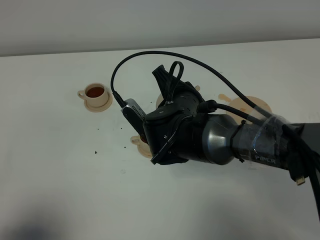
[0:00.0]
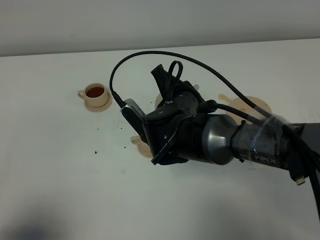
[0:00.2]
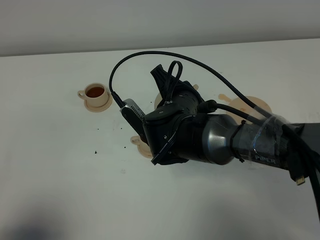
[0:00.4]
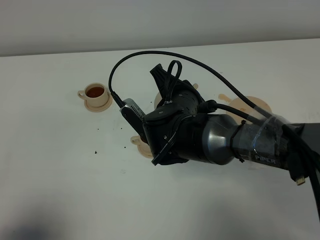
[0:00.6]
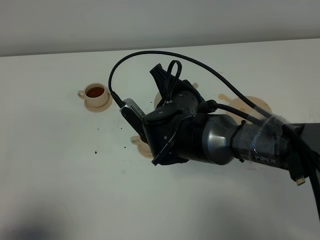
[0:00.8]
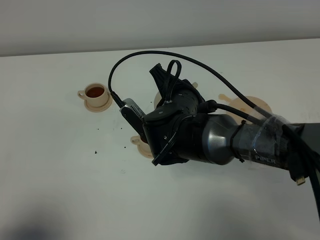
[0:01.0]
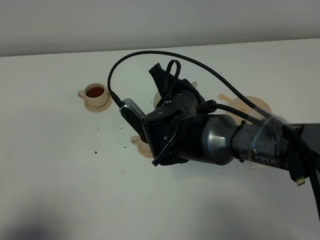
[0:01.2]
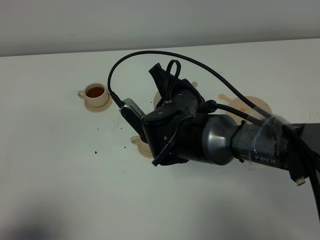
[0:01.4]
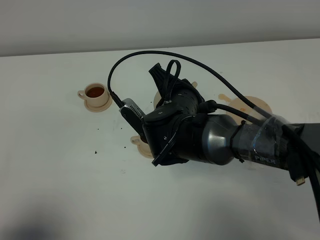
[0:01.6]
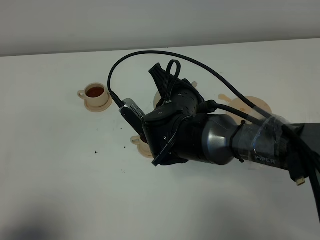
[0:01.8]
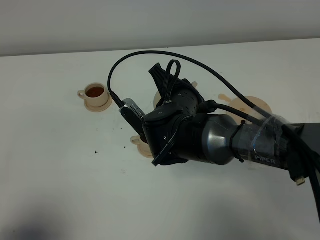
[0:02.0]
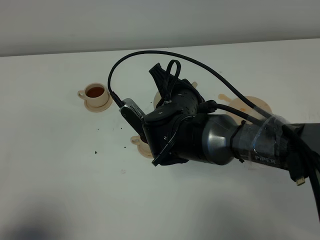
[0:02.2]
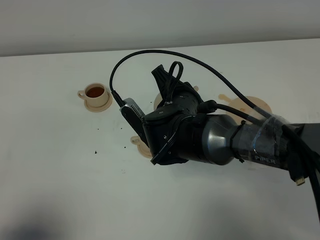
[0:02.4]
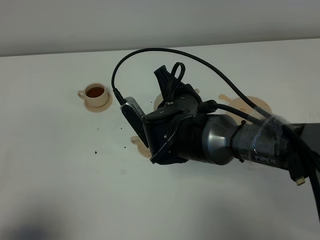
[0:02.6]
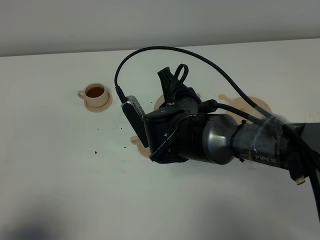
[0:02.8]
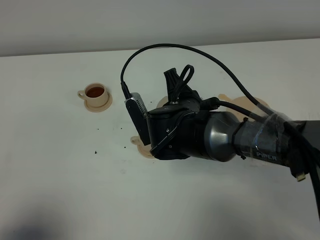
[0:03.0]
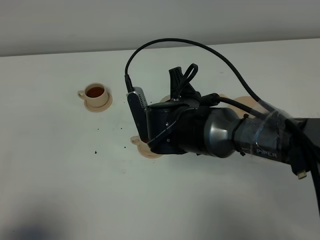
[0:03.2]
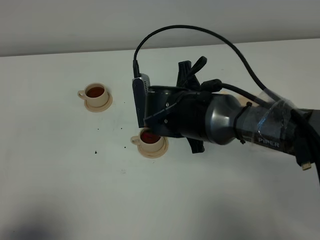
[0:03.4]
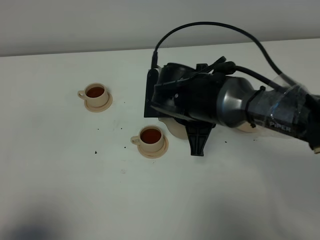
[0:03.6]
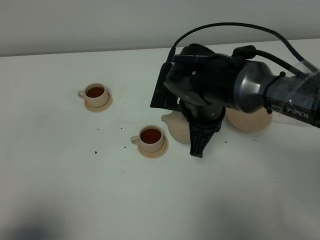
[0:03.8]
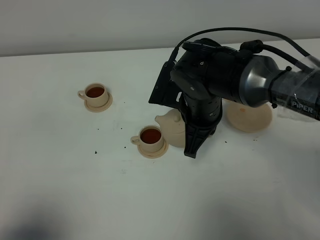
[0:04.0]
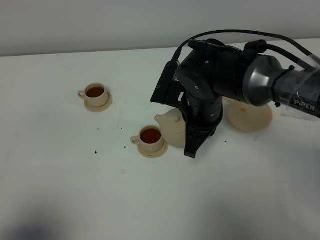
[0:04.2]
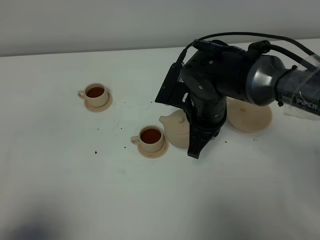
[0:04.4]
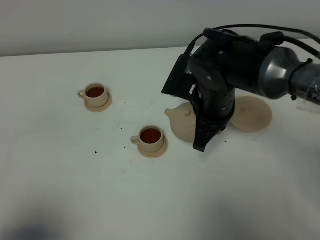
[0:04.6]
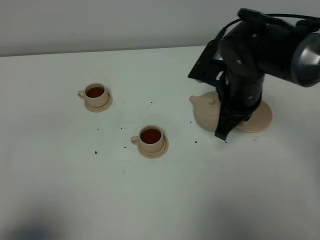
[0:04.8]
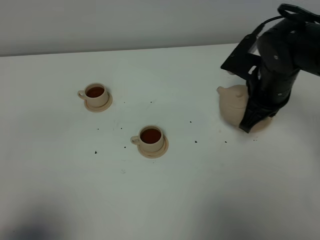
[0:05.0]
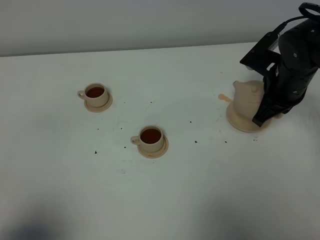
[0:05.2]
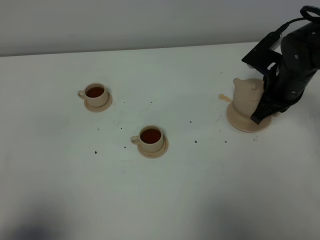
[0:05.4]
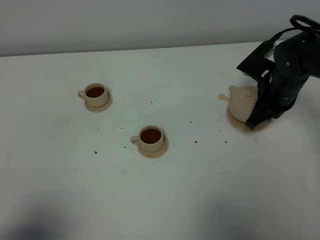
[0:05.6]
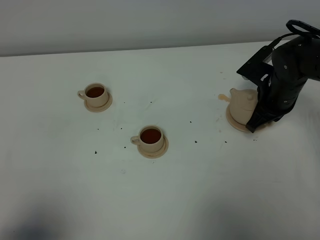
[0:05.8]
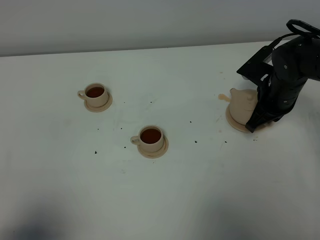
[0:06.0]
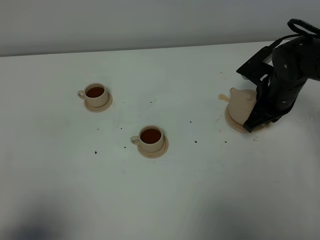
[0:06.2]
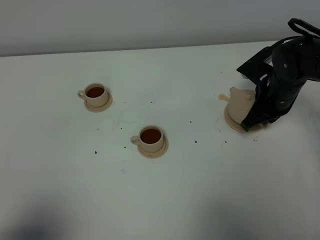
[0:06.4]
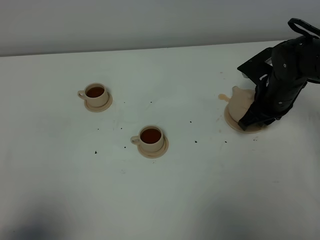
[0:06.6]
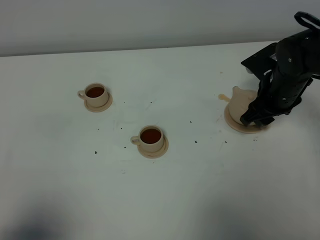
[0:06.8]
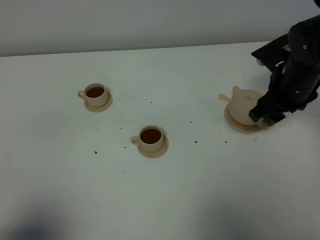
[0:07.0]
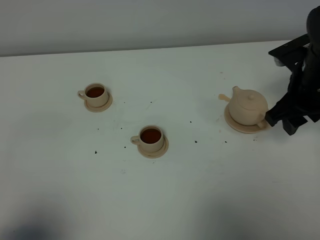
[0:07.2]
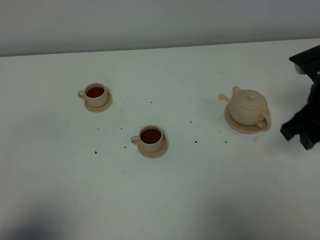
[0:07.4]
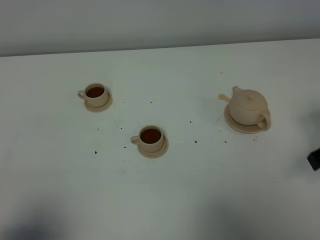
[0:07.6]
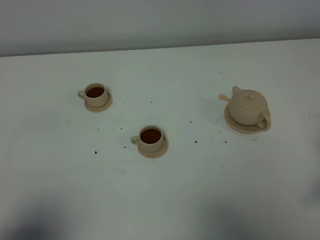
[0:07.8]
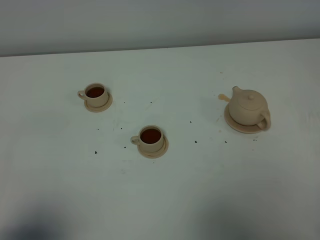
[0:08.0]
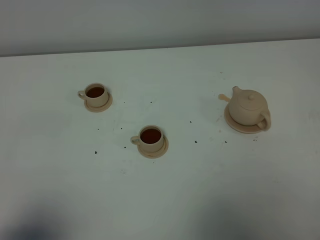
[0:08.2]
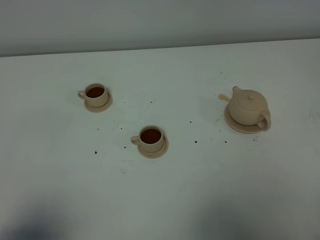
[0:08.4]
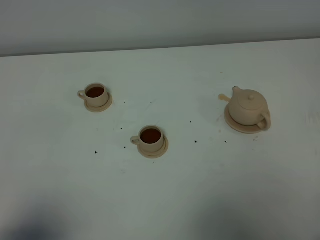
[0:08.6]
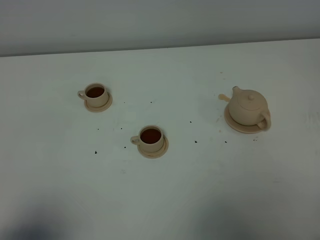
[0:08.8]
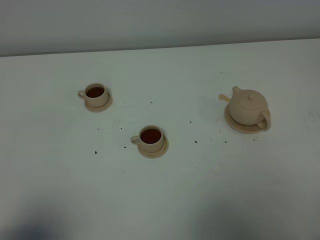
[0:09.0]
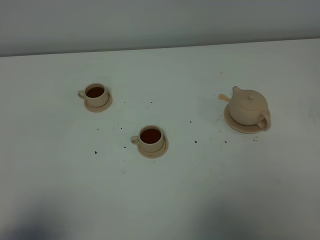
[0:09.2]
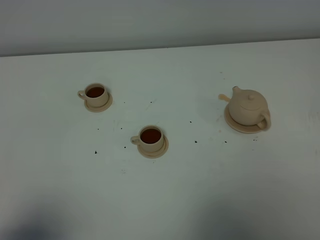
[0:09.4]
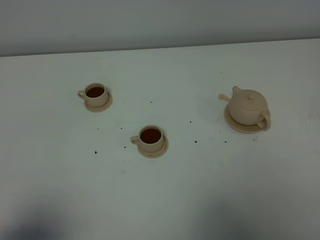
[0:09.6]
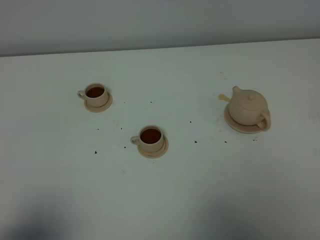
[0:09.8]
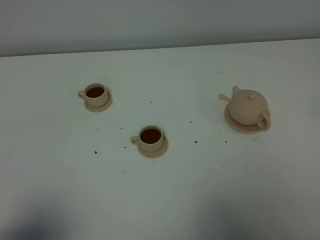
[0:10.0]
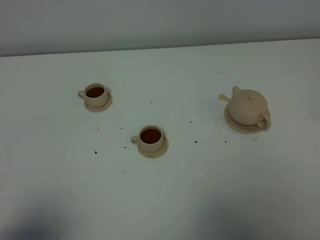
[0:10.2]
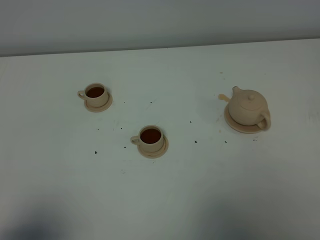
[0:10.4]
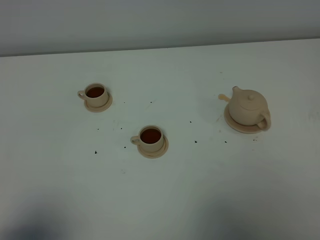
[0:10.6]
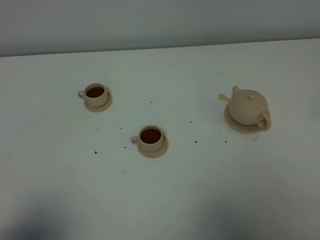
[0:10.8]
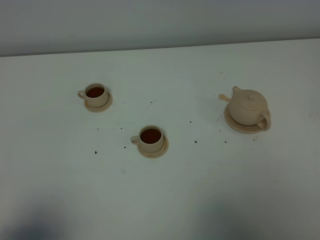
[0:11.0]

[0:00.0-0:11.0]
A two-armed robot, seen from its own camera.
Task of the whole recording: grasp the brown teapot and pour the tea into the two brown teacups one by one, put the brown teapot back in its original place.
Step, 0:00.0 to 0:03.2: Pour tea into the teacup with the right gripper.
0:00.0 to 0:01.6: Both grippers stay put.
0:03.2 to 0:04.8: The right gripper moves to the right, approximately 10 cm.
0:04.8 to 0:06.2: The right gripper shifts about 10 cm to the right, downward and forward.
0:06.2 to 0:07.8: The right gripper shifts about 30 cm backward, upward and to the right, and opens.

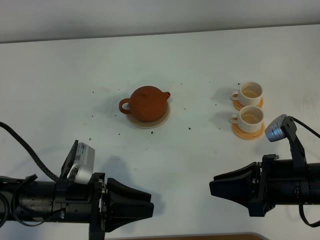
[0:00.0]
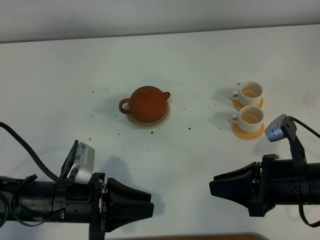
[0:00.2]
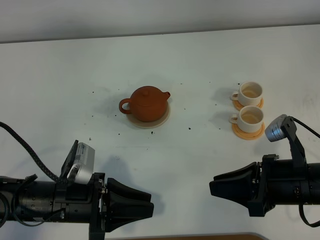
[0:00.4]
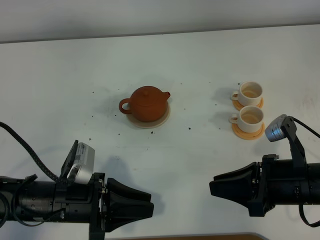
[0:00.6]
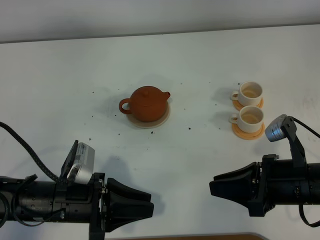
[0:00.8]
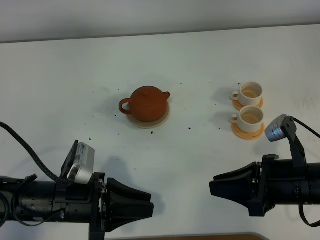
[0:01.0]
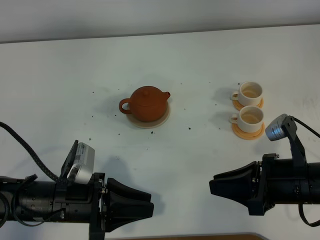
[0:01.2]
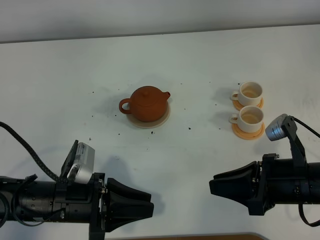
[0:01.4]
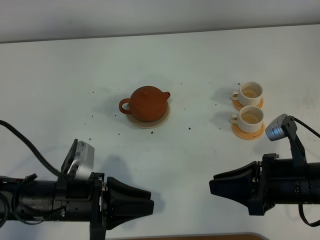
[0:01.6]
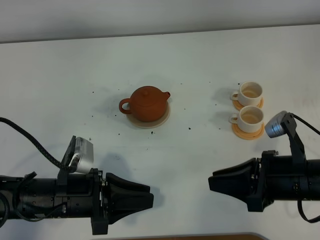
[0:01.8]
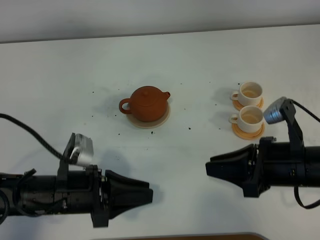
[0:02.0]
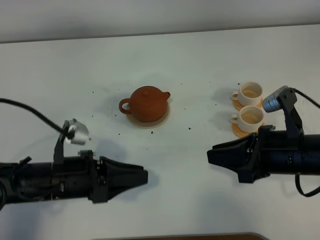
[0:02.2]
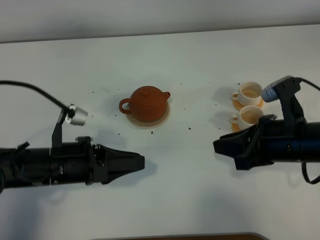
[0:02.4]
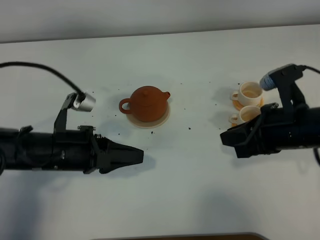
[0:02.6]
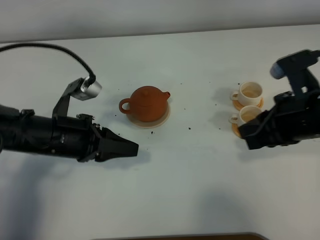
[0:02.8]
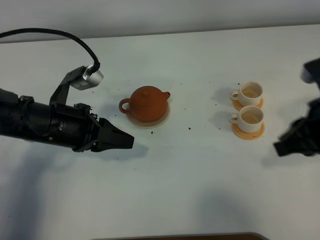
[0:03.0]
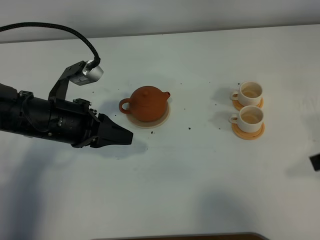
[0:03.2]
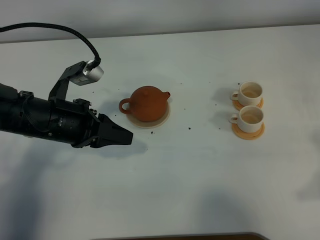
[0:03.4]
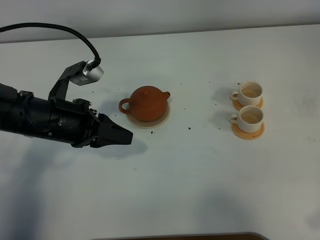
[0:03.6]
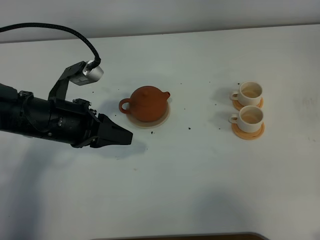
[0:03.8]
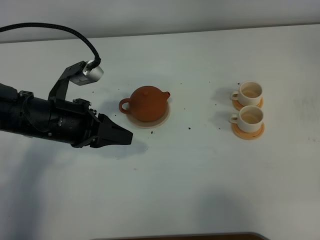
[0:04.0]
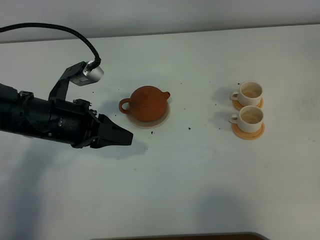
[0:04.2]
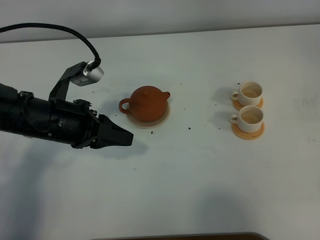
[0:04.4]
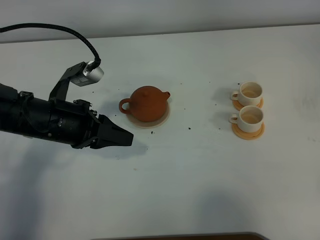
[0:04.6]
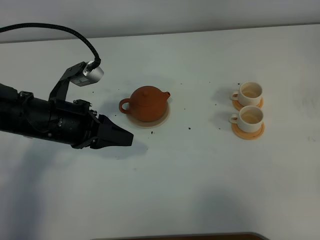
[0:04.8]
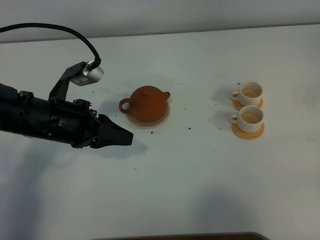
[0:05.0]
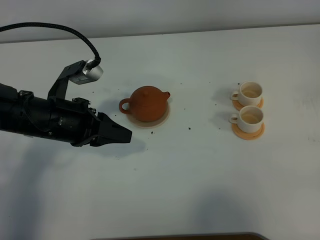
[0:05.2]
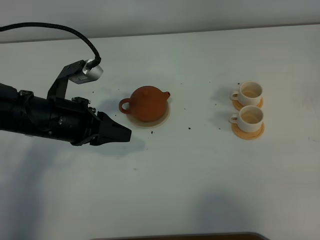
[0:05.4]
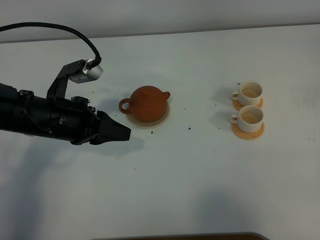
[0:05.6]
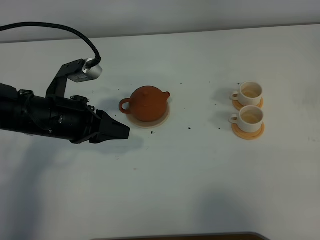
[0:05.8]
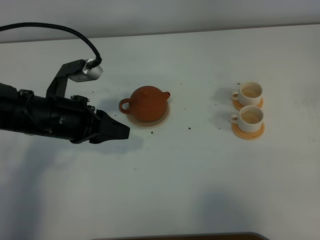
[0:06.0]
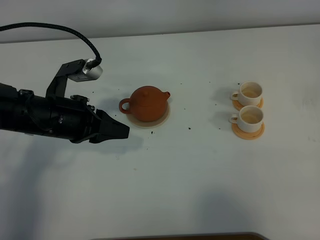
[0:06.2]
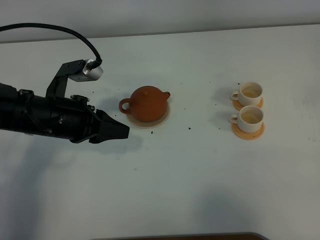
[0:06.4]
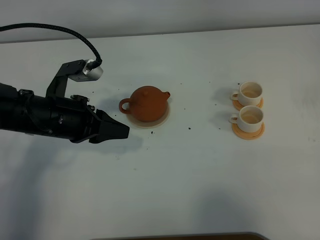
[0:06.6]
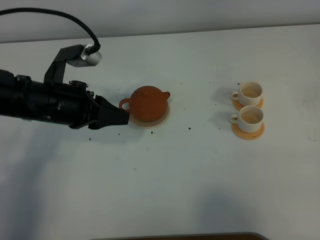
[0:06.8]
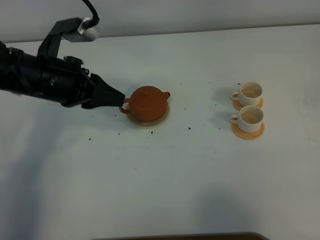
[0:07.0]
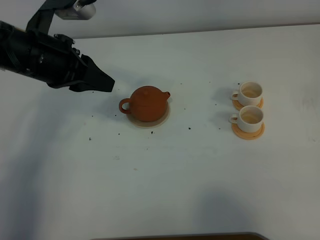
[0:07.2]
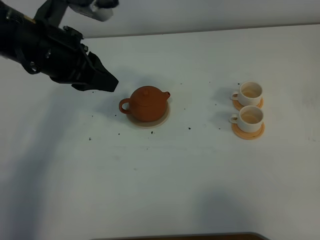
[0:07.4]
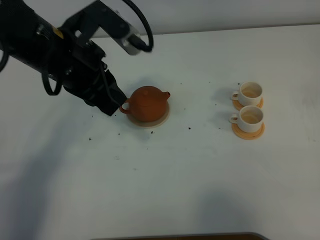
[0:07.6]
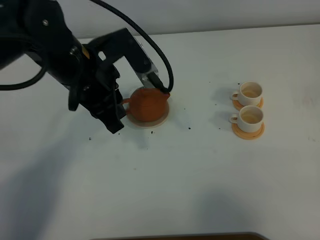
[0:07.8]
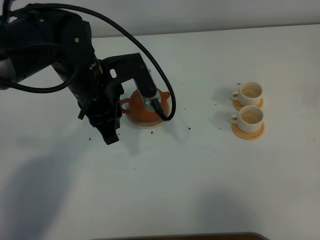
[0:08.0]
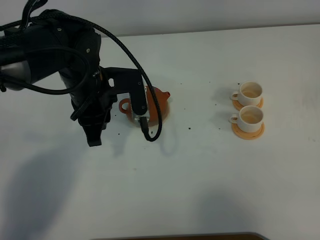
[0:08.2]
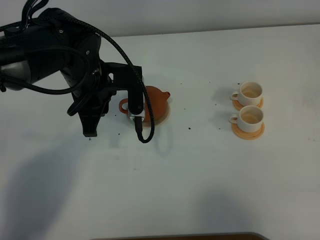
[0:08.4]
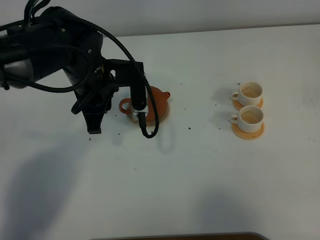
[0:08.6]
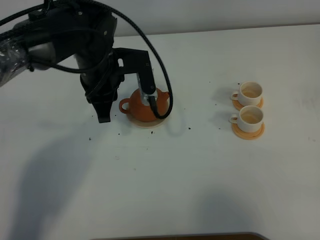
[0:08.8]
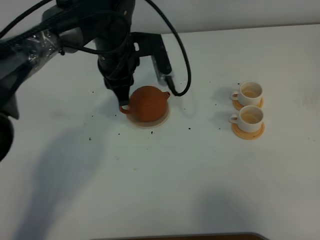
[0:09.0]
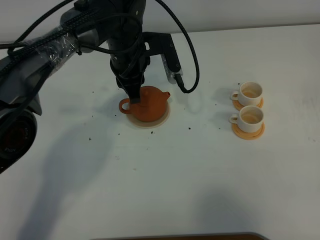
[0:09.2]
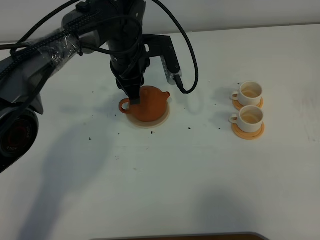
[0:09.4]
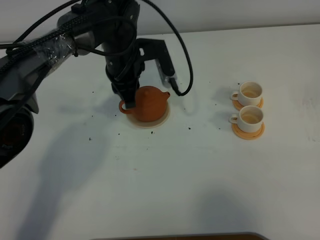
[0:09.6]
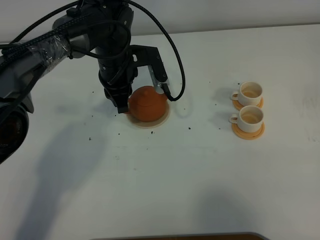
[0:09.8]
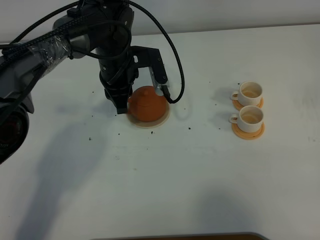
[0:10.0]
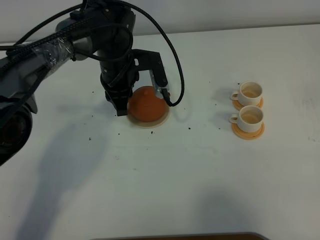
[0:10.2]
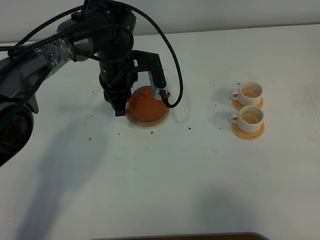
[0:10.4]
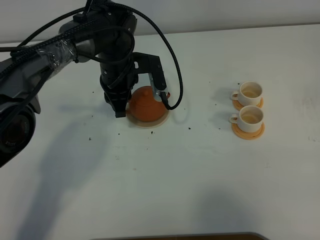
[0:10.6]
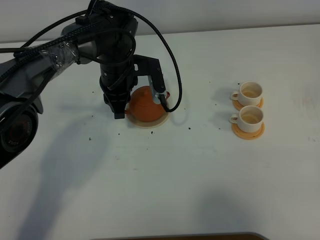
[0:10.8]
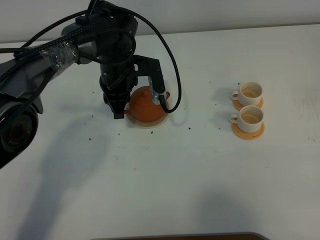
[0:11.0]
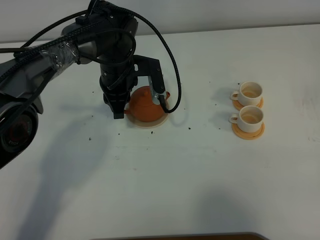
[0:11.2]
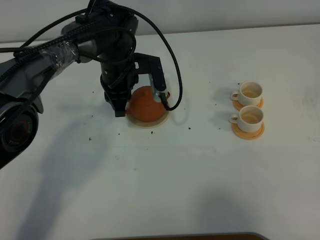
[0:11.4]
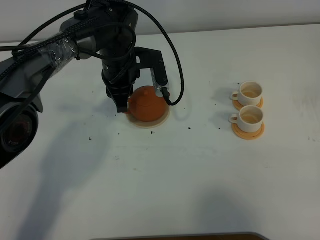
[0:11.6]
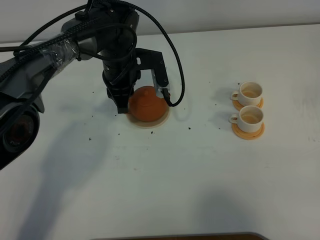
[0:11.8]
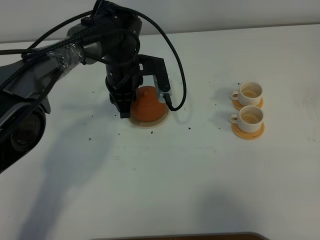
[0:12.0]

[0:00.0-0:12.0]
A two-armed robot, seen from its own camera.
Task of the whole recording: grasp the brown teapot and pour the tea into the two white teacups one by one, put the brown teapot back in its original place.
0:00.0 to 0:01.6: Neither gripper changes place.
0:01.6 to 0:03.0: The left gripper moves forward and upward, about 10 cm; the right gripper shifts roughly 10 cm upward.
0:03.0 to 0:04.4: The right gripper goes some 15 cm backward and to the right.
0:06.0 to 0:07.6: The left gripper moves upward and to the right, roughly 10 cm.
0:07.6 to 0:09.0: The left gripper heads forward, downward and to the right, covering roughly 15 cm.
0:09.0 to 0:10.4: The left gripper ends up approximately 5 cm from where it was.
0:10.4 to 0:12.0: The grippers move only a little.
